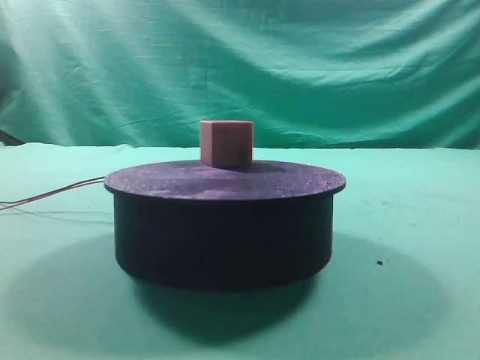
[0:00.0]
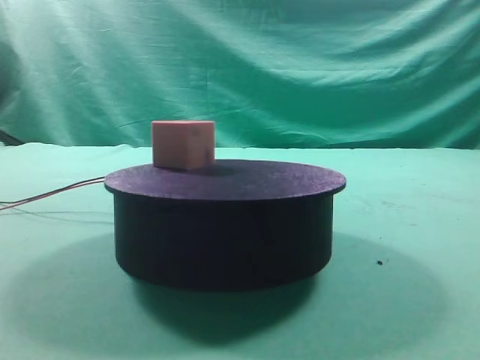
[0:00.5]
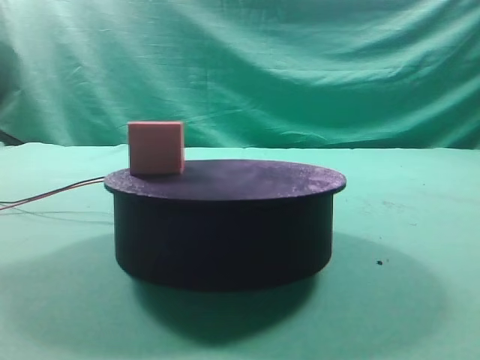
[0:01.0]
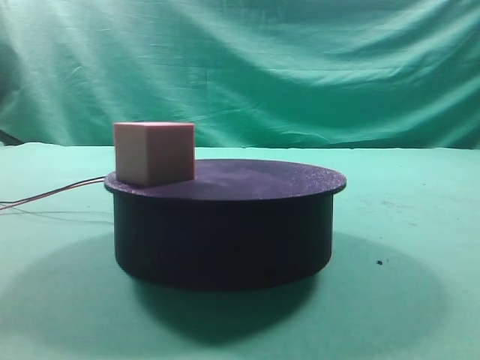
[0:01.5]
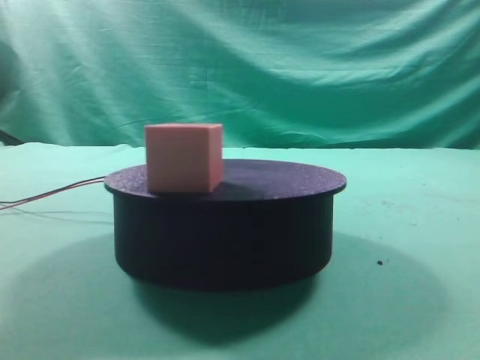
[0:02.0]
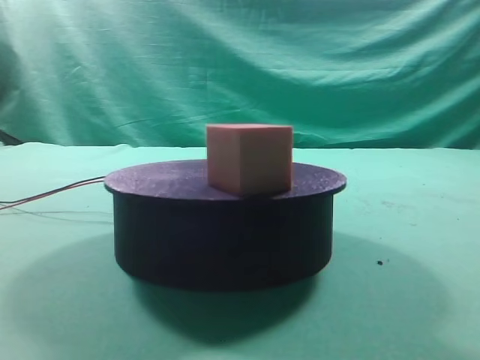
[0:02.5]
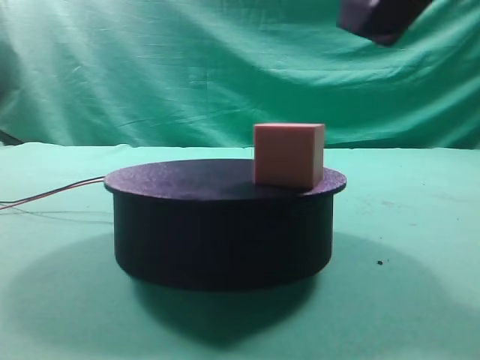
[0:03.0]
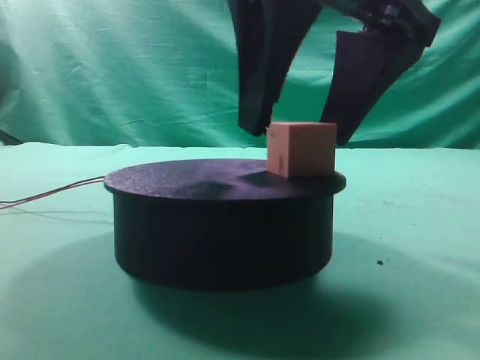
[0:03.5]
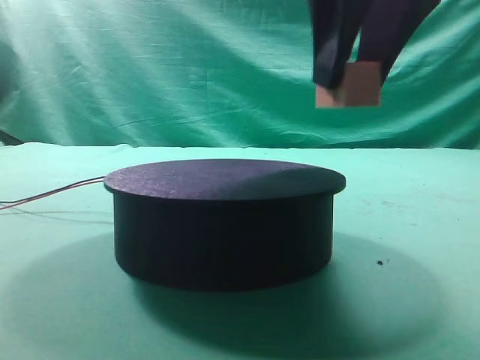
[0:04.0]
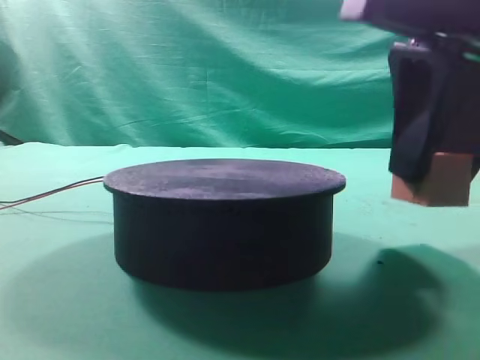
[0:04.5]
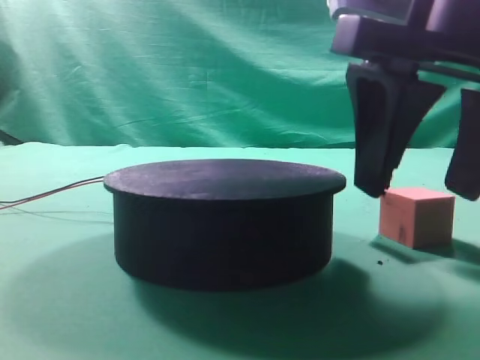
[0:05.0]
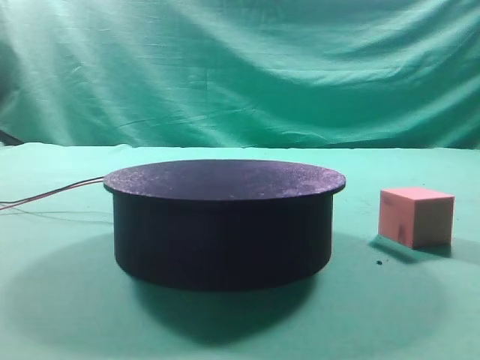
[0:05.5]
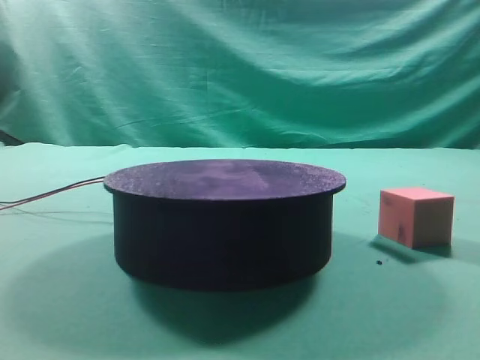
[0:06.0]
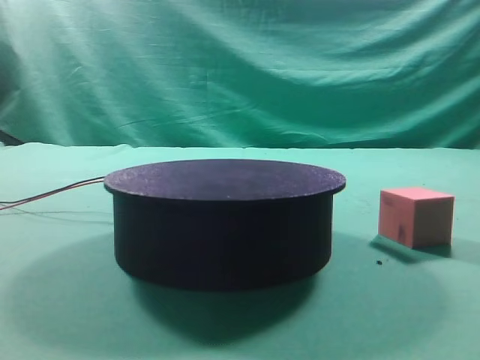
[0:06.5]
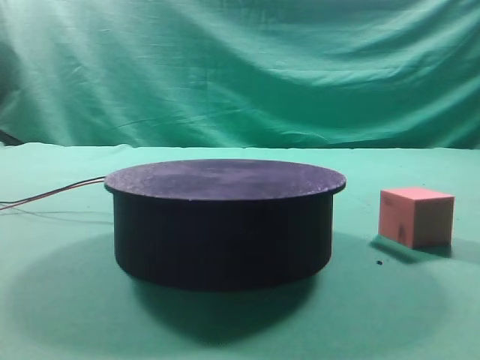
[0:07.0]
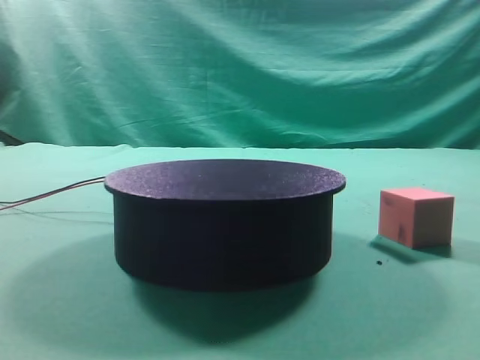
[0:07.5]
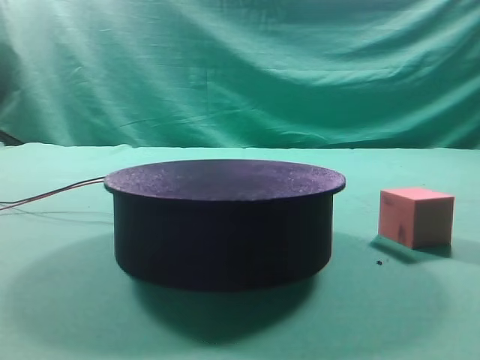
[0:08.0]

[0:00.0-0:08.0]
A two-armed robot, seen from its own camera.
Task of the whole recording: grasp the rotating cube-shaped block on the turntable and place it on the table.
Step, 0:00.0 to 0:03.5: Grasp the rotating cube-shaped block on the turntable.
Step, 0:04.0 to 0:05.0: Place the cube on the desk.

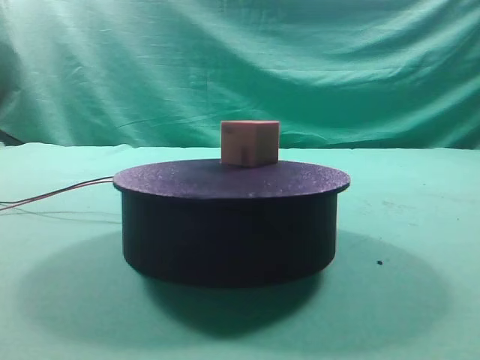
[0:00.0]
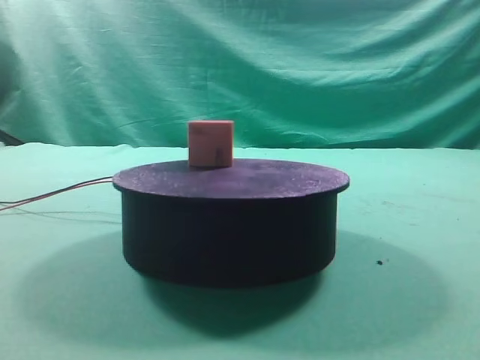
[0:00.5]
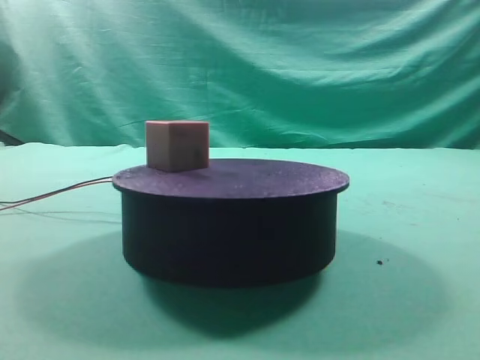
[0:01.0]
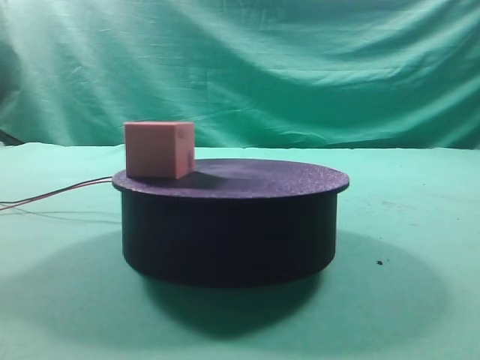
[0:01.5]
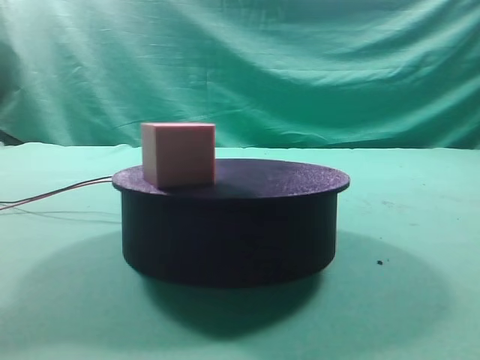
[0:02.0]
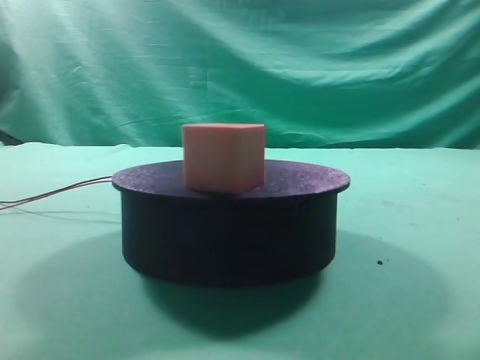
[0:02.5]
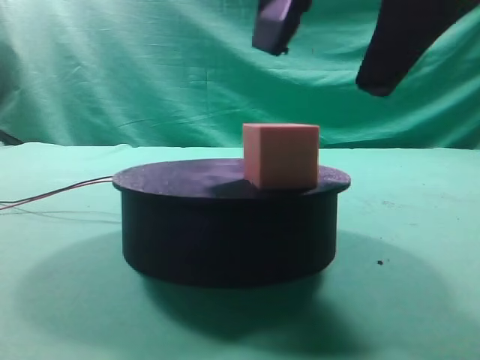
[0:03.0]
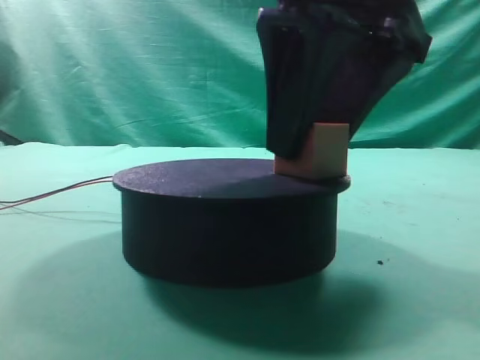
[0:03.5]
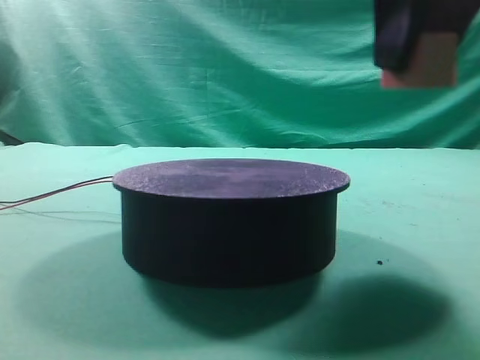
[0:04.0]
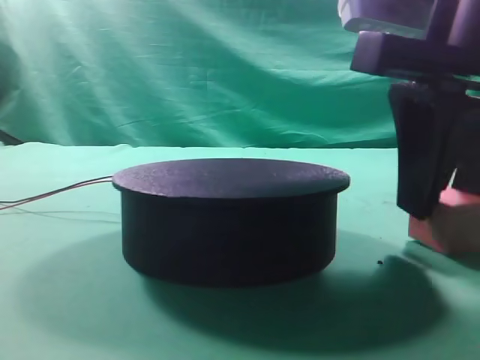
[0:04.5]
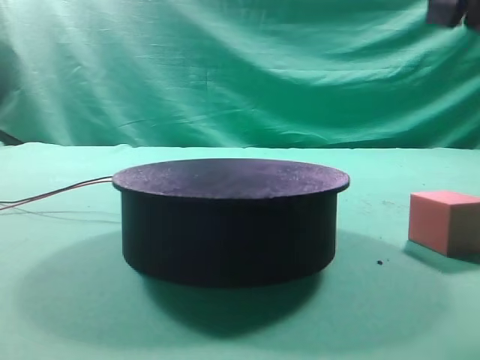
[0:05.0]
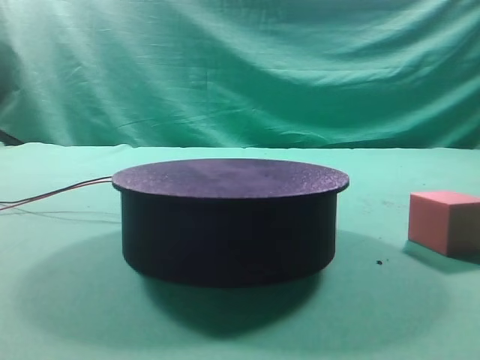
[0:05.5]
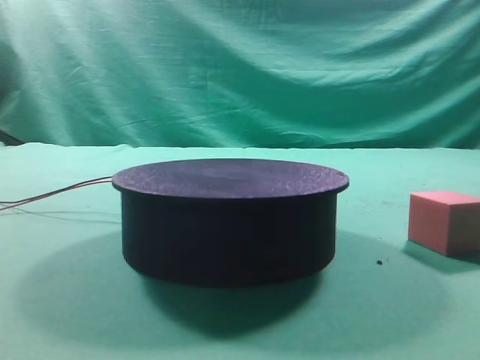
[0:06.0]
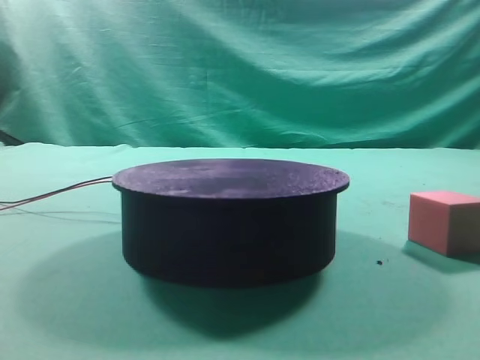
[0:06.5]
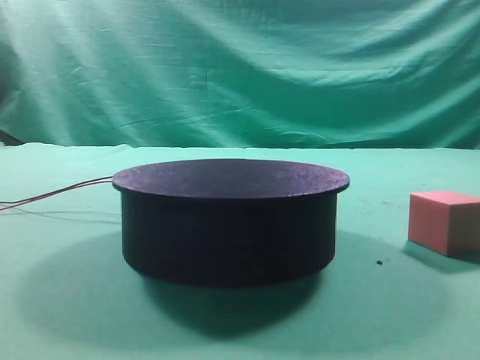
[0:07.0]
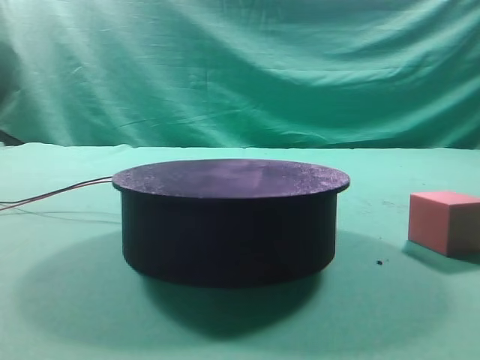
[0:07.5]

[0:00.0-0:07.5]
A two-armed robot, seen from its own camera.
Task of the whole recording: grasp the rotating cube-shaped block on the turntable and place it on the table.
Step, 0:00.0 to 0:03.5: Grasp the rotating cube-shaped block on the turntable.
Step, 0:04.0 to 0:04.5: Place the cube on the desk.
